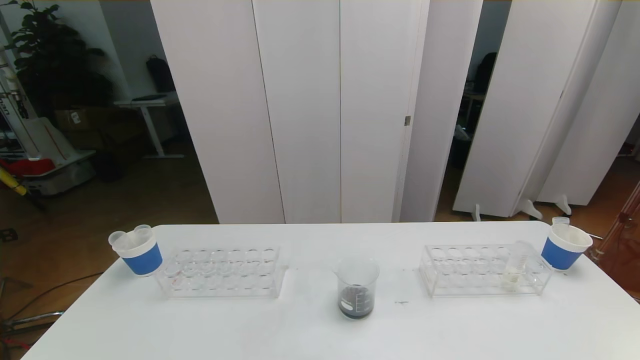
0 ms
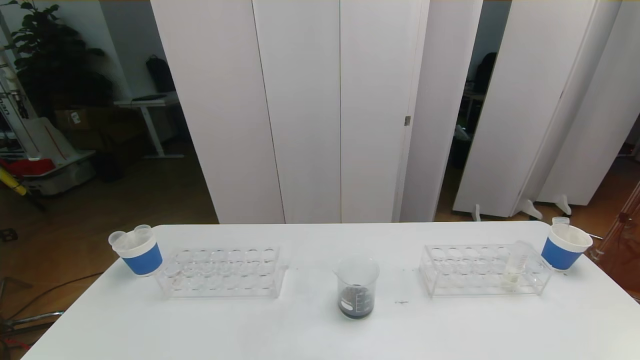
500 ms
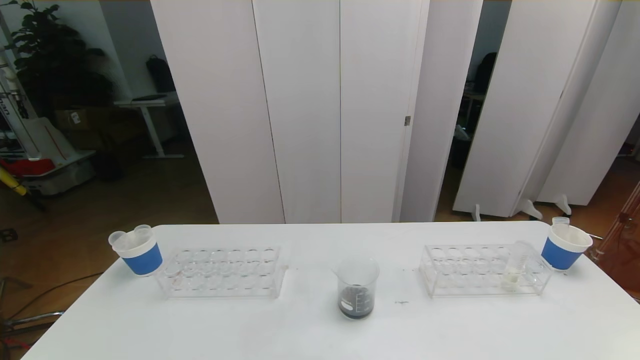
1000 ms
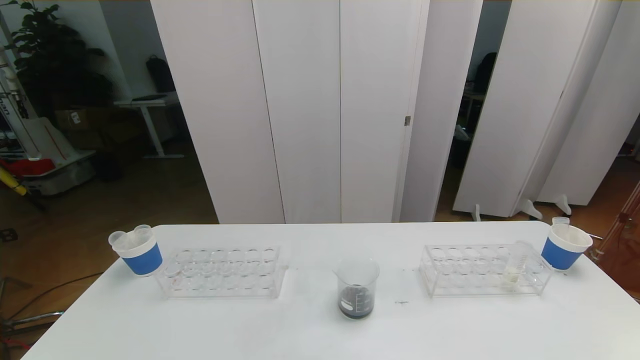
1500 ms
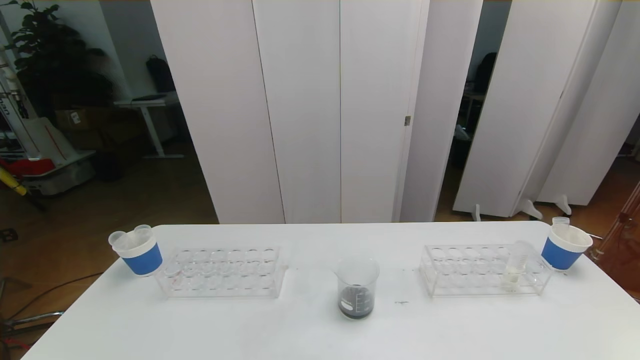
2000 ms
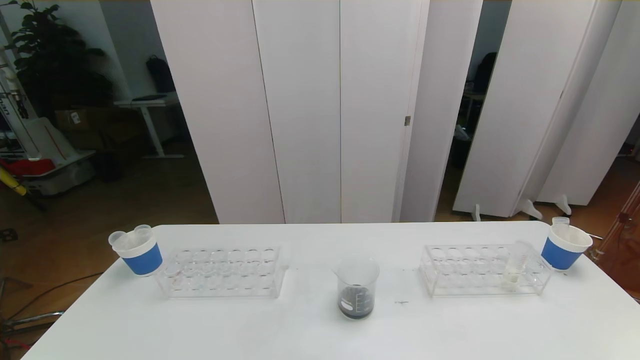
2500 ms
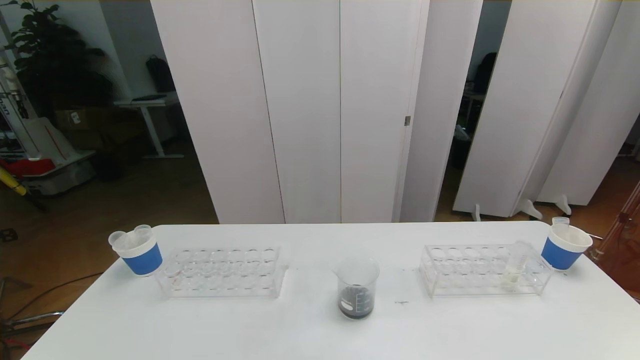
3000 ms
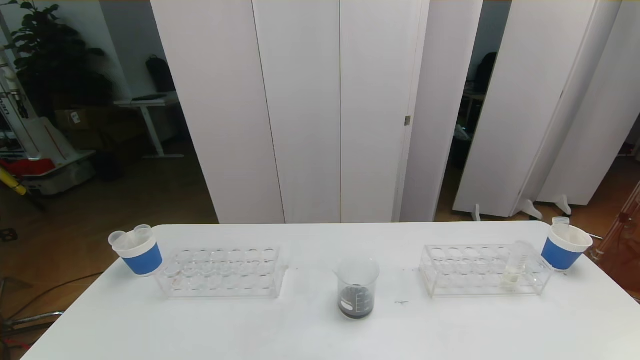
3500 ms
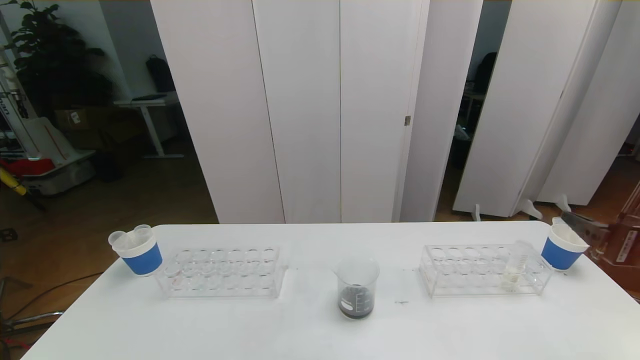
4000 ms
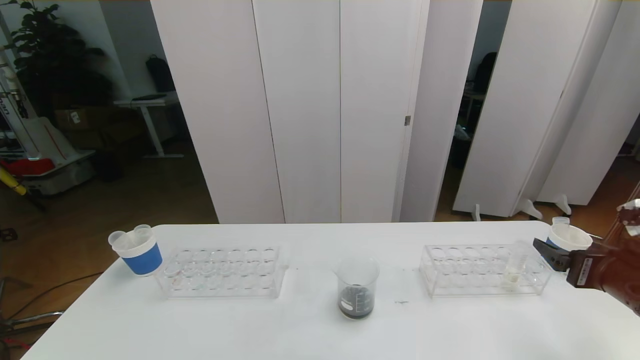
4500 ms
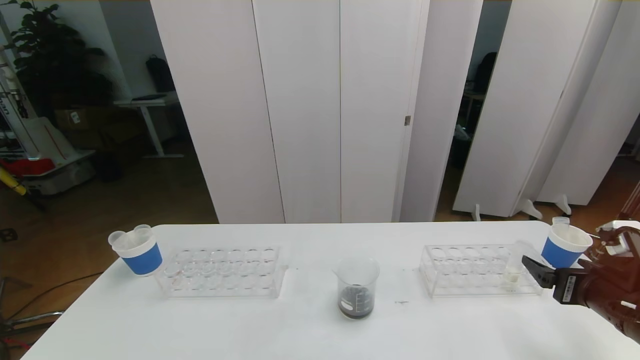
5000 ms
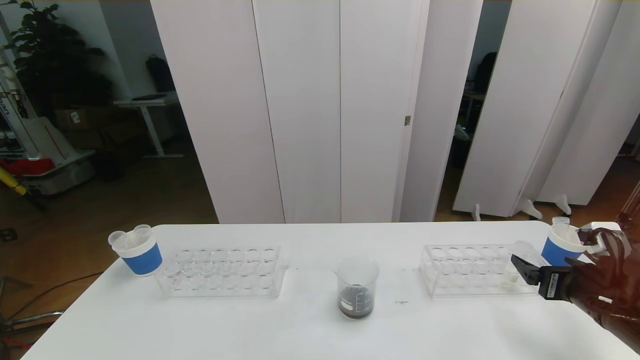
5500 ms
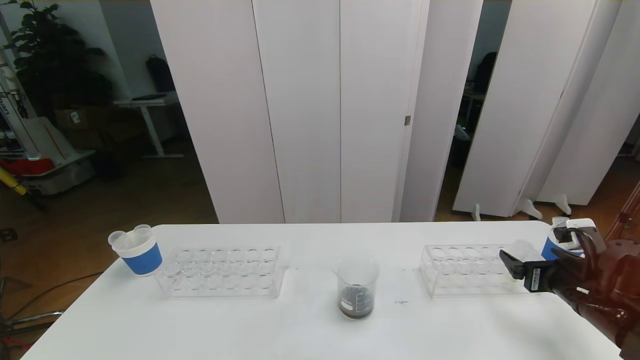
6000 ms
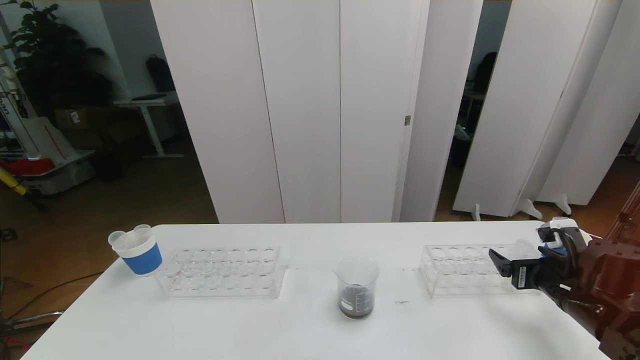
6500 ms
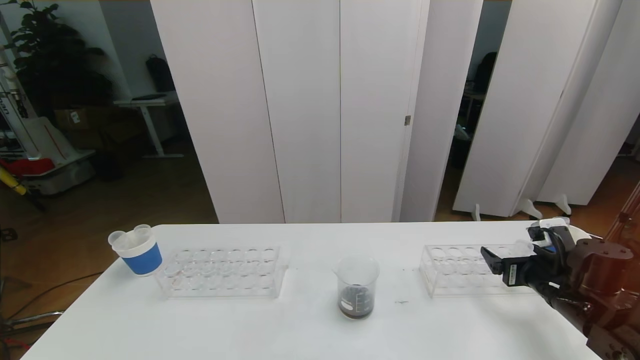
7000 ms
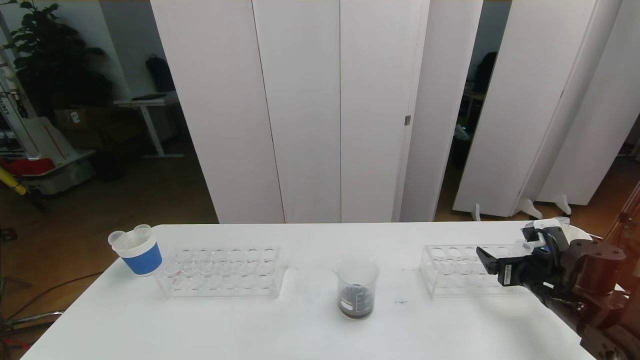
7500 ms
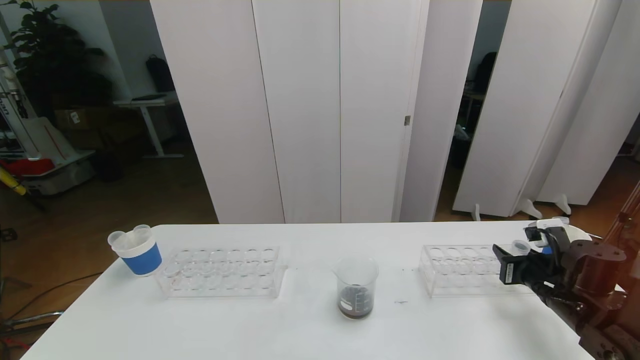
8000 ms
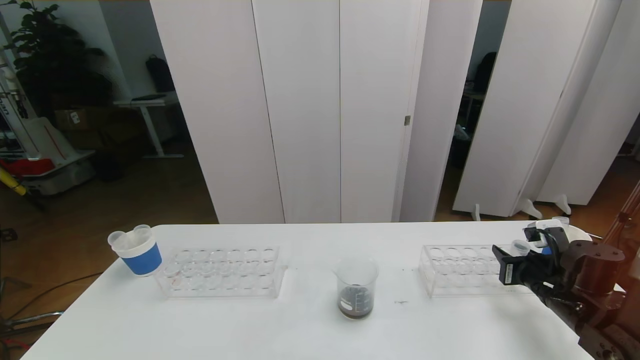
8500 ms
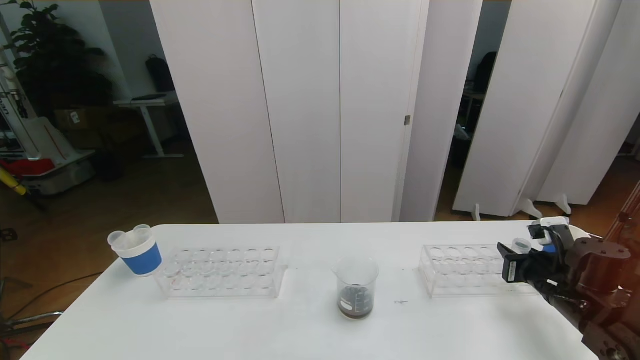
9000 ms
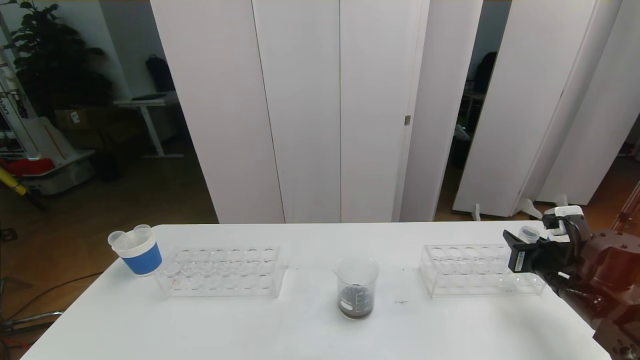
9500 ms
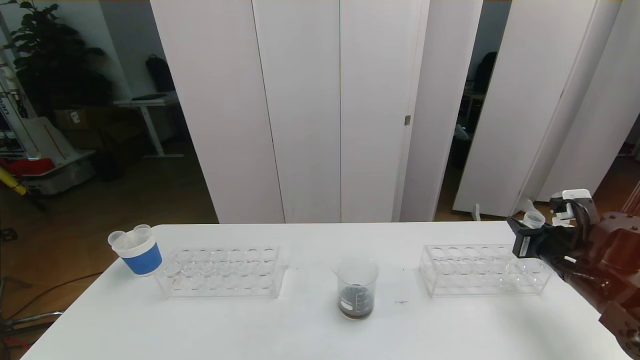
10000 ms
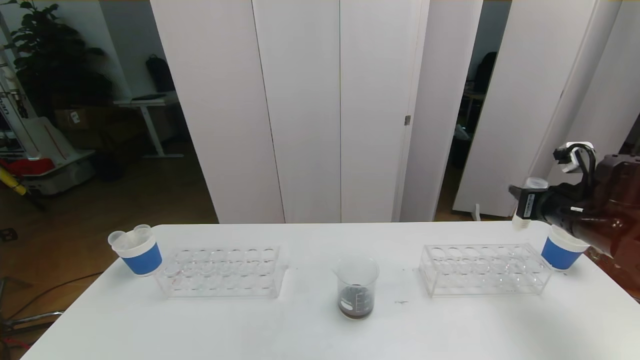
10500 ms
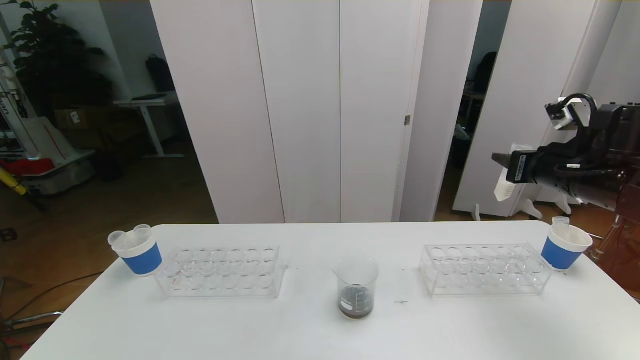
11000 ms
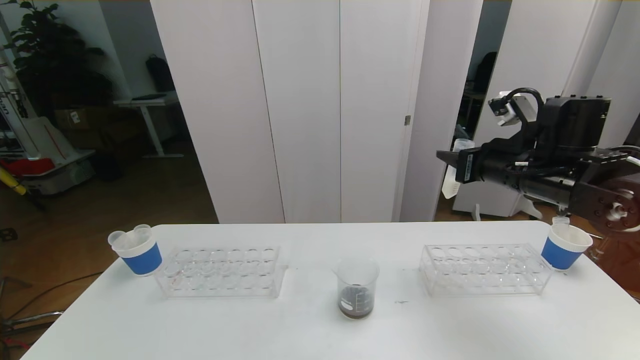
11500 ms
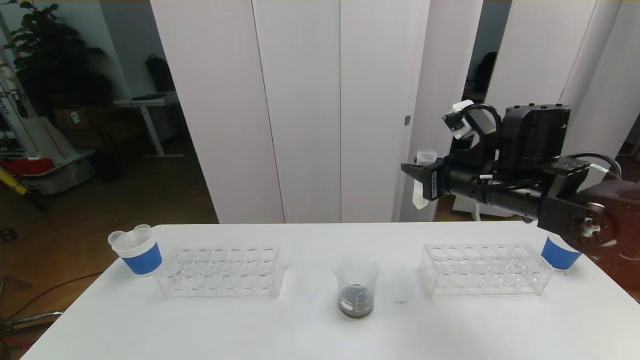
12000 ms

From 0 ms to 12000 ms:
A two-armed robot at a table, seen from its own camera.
Task of the whole recording: pick up the test tube with red pigment the test tube with blue pigment and the test tube with white pigment by grippers and pour them into the beaker.
From 0 ms to 2000 ms: Both grippers stay about where they are.
From 4000 ms to 6000 ms: The right gripper travels downward and forward by some 15 cm.
From 6000 ms to 8000 ms: The right gripper closes up.
From 8000 ms to 10000 ms: The right gripper is displaced upward by approximately 5 cm.
From 10000 ms to 12000 ms: The right gripper shifts approximately 20 cm to the left and upward.

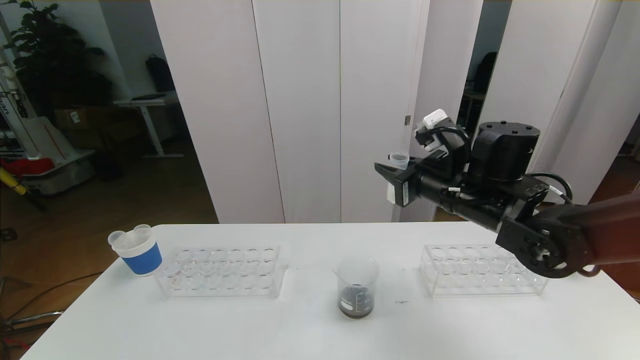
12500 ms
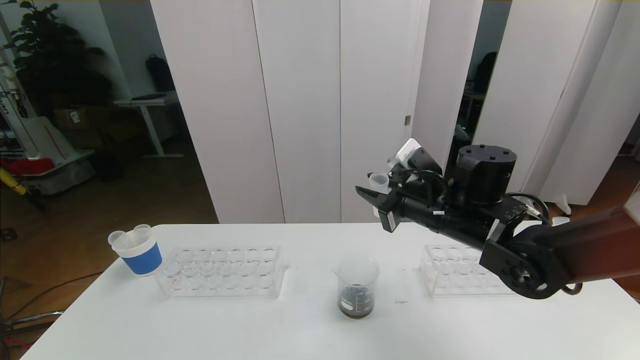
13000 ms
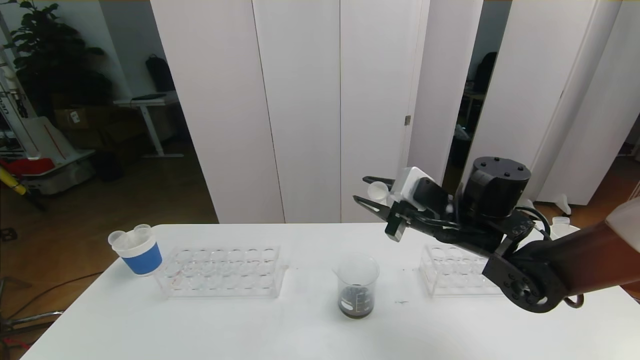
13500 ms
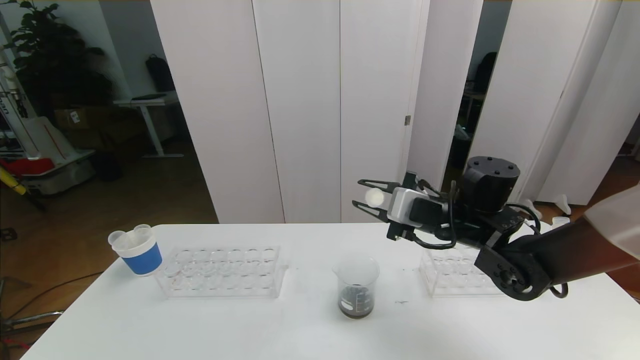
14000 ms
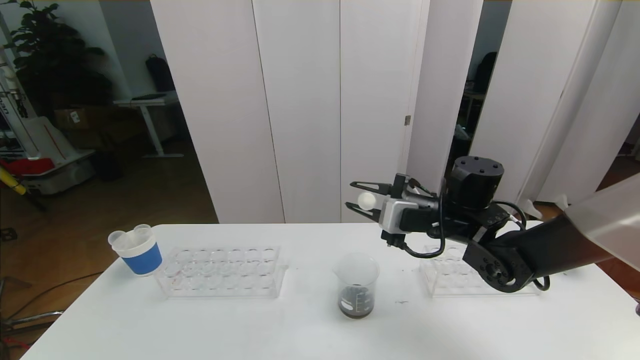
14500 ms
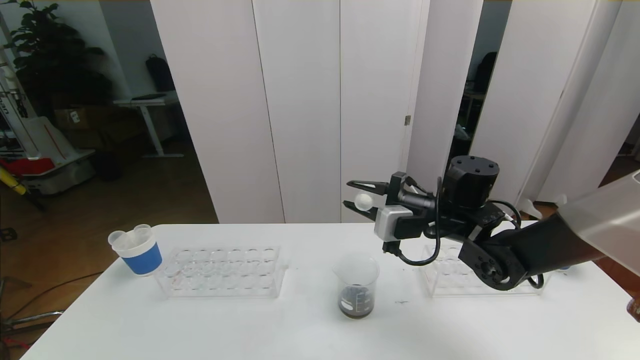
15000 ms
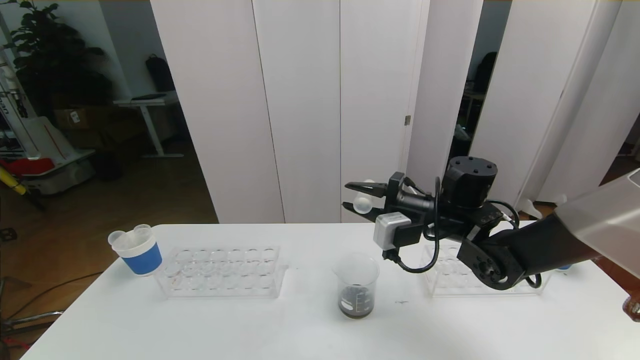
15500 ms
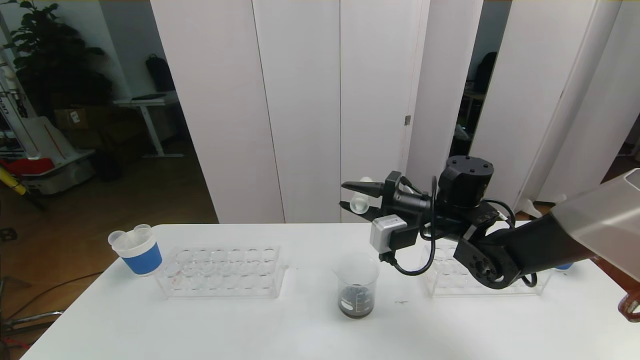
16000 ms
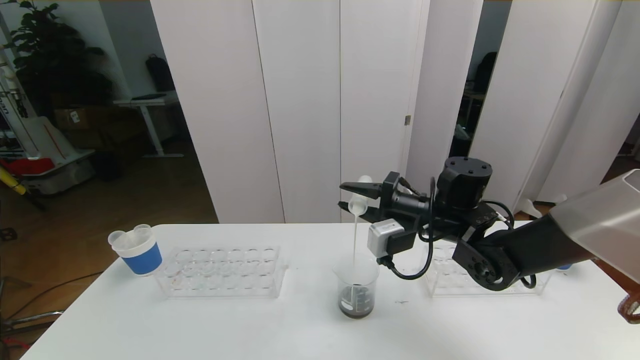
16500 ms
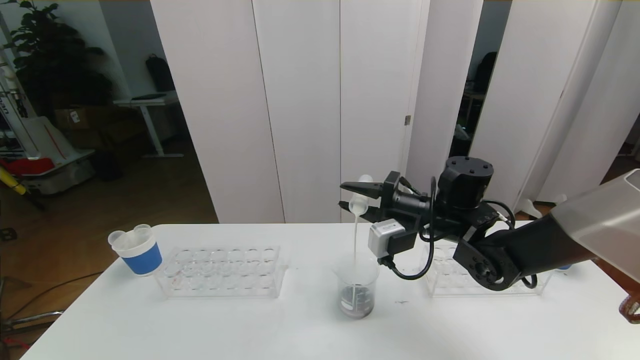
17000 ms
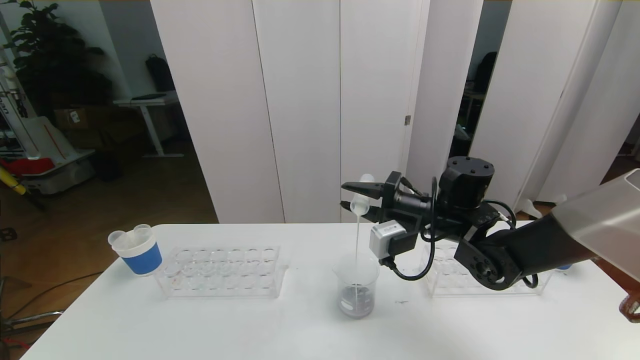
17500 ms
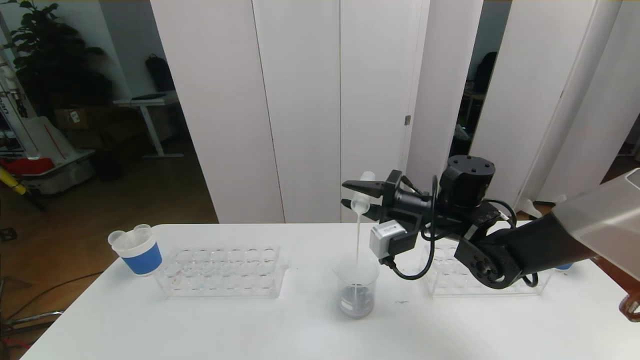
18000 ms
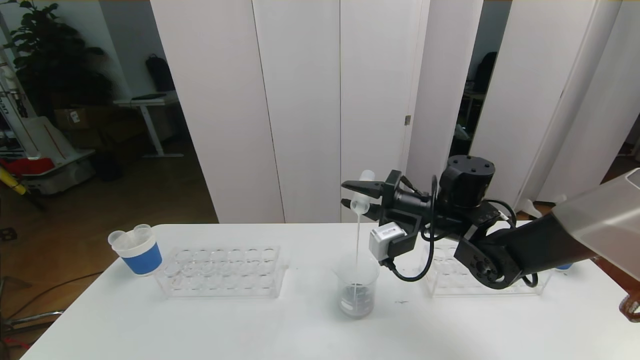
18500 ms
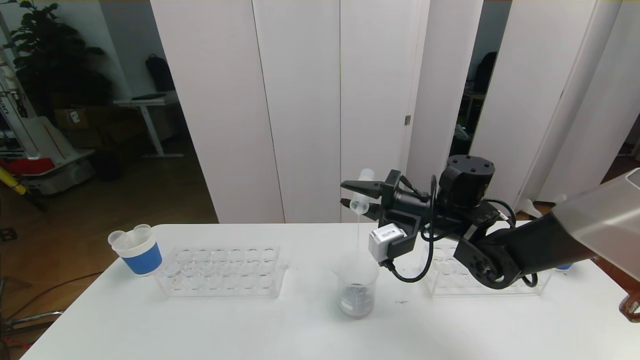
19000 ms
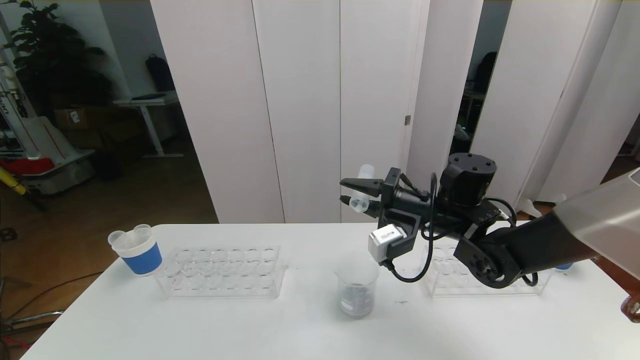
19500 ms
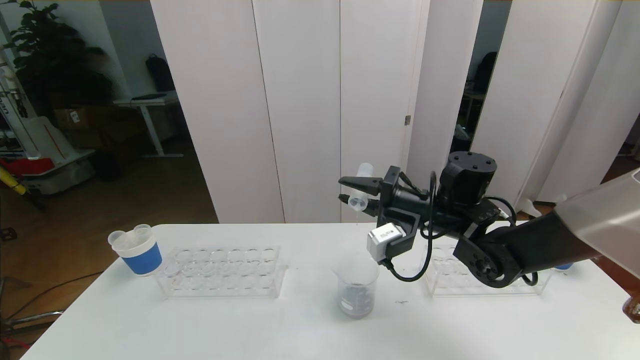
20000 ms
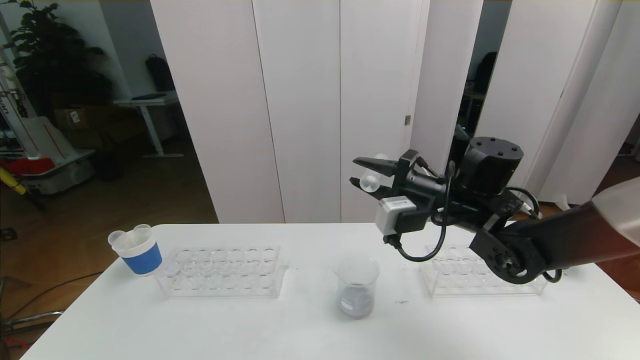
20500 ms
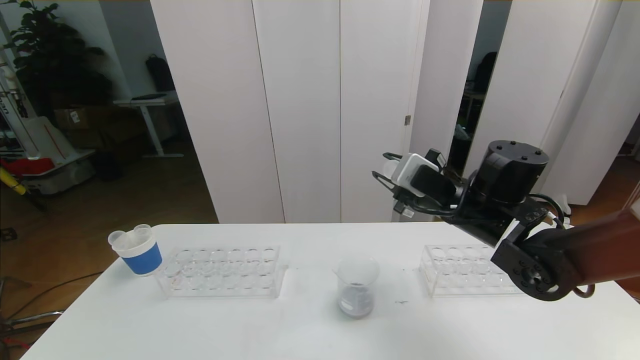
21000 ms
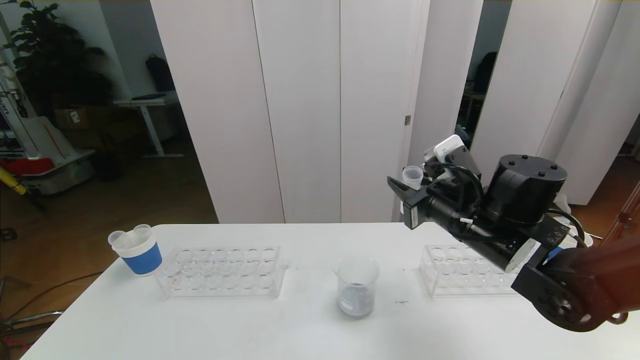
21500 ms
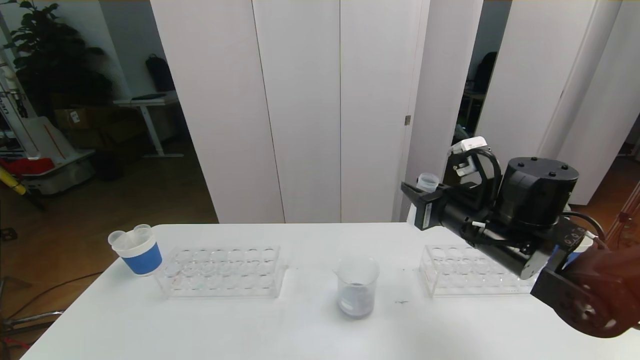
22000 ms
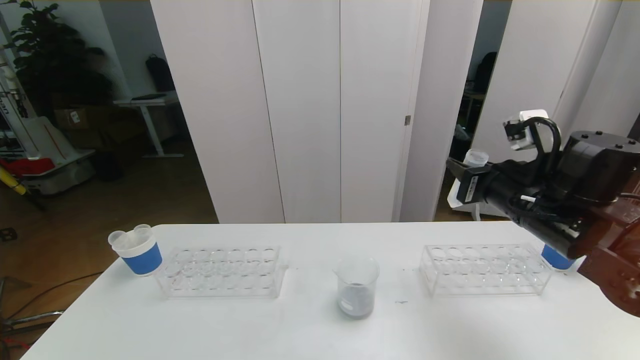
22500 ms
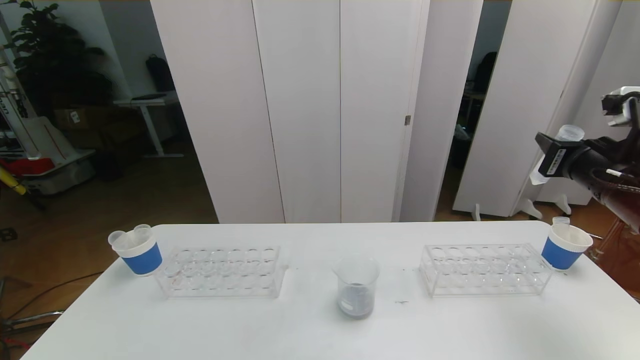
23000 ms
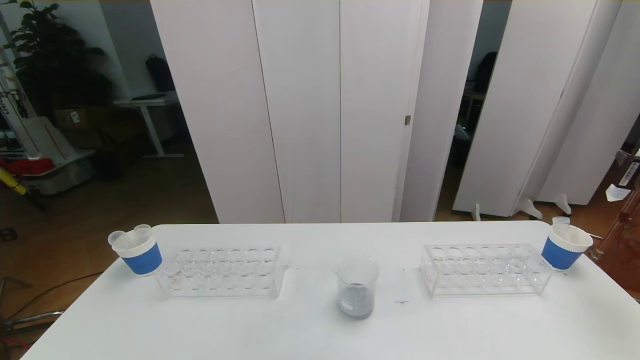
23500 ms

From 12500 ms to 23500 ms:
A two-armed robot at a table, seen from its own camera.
Task of the whole recording: pick up the test tube with red pigment the test tube with blue pigment and the test tube with white pigment by grippers and pour them into the beaker.
From 12500 ms to 14500 ms: The right gripper shifts some 5 cm downward.
From 14500 ms to 16000 ms: The grippers make only small movements.
From 16000 ms to 20000 ms: The grippers make only small movements.
From 20000 ms to 21500 ms: The right gripper travels backward by approximately 5 cm.
From 21500 ms to 23500 ms: The right gripper shifts about 30 cm to the right.
